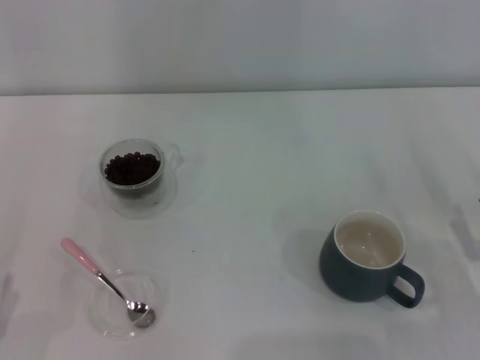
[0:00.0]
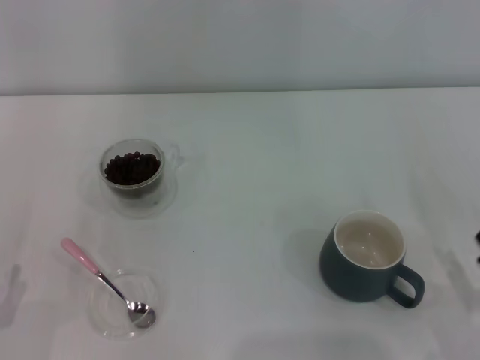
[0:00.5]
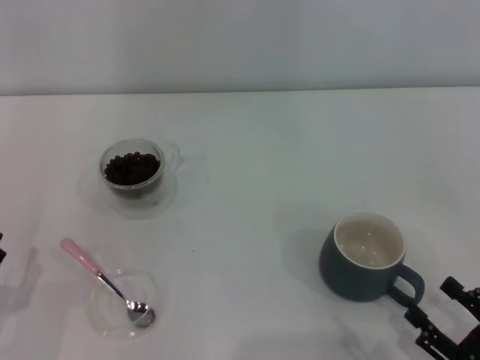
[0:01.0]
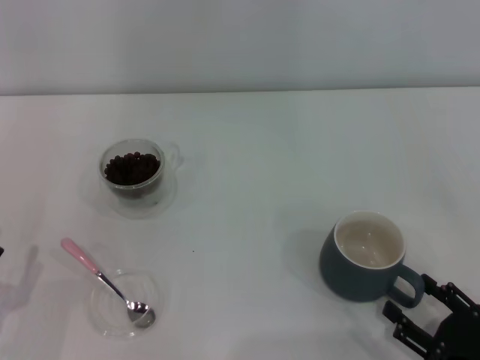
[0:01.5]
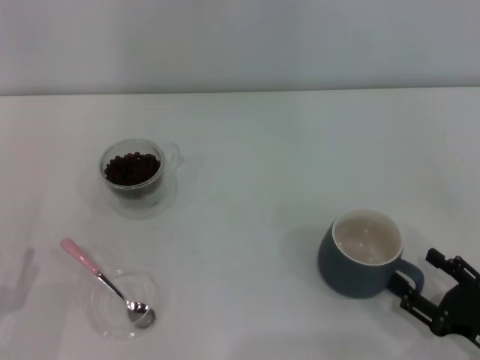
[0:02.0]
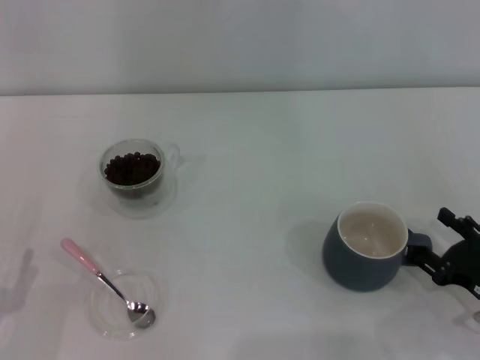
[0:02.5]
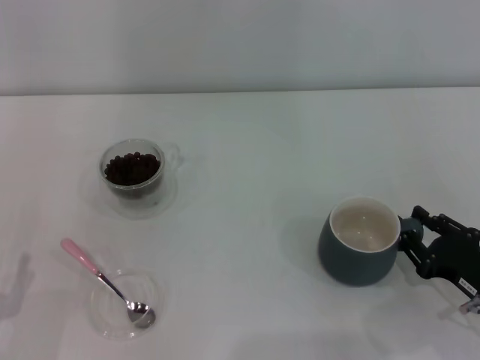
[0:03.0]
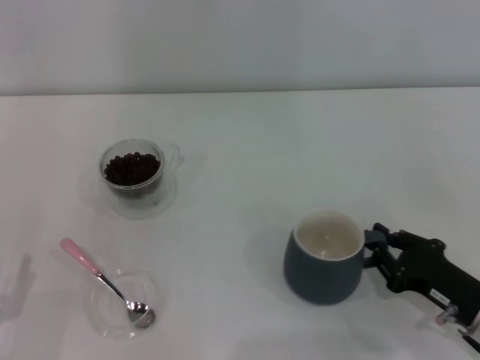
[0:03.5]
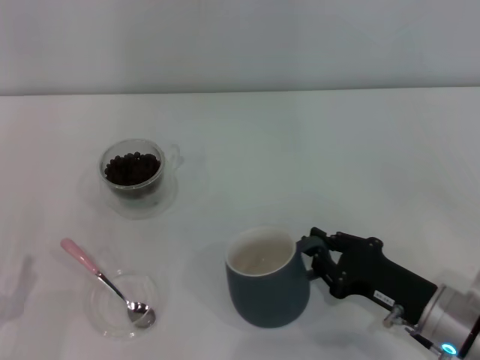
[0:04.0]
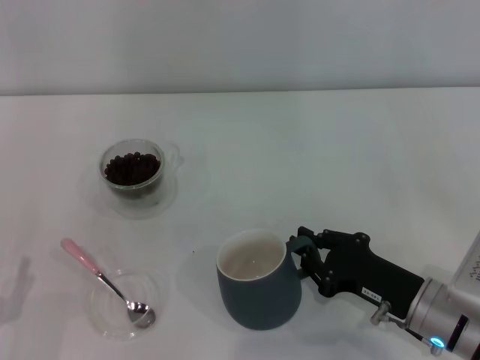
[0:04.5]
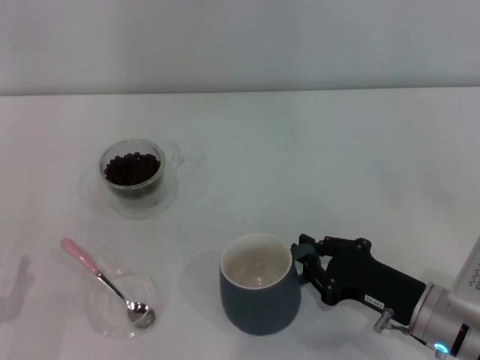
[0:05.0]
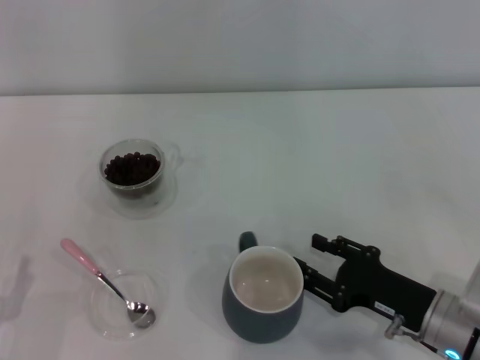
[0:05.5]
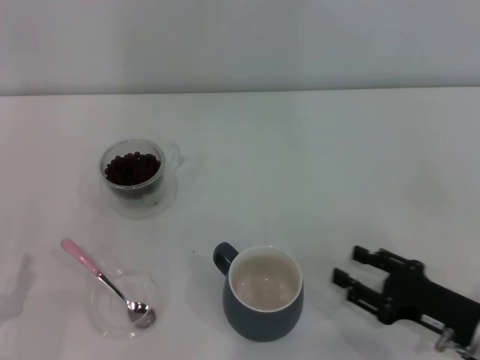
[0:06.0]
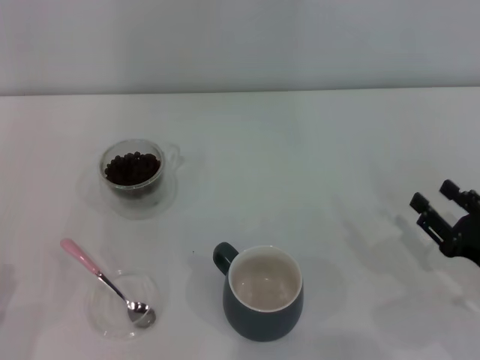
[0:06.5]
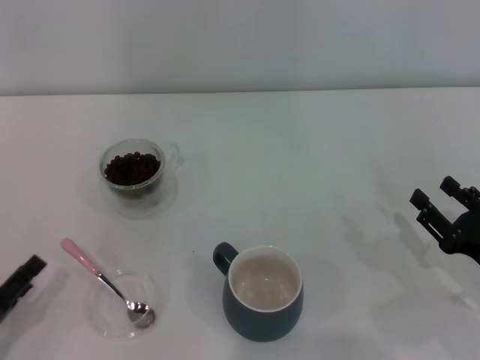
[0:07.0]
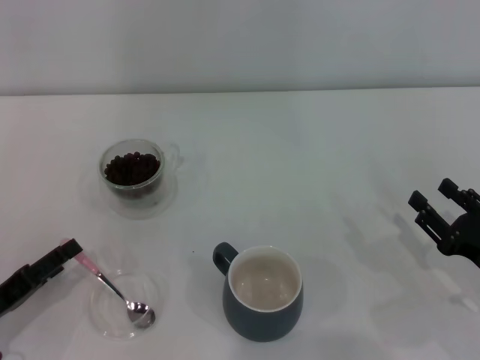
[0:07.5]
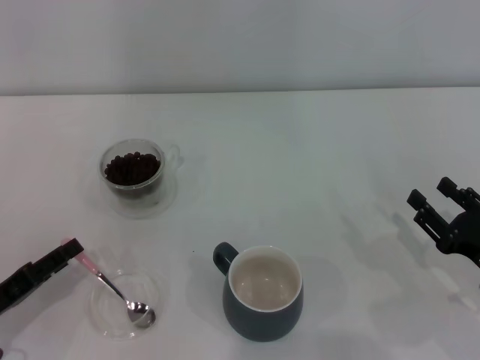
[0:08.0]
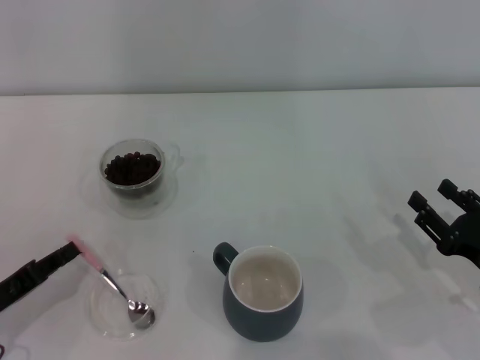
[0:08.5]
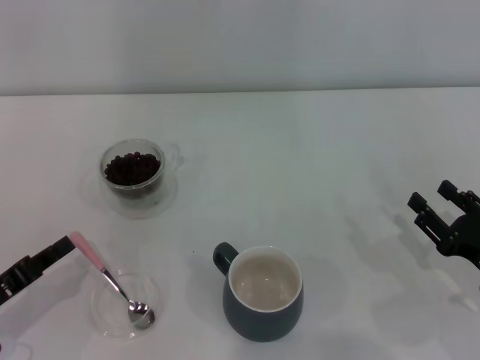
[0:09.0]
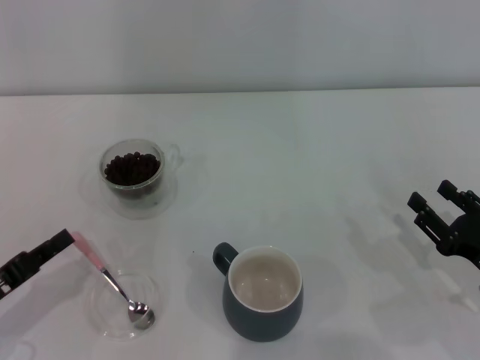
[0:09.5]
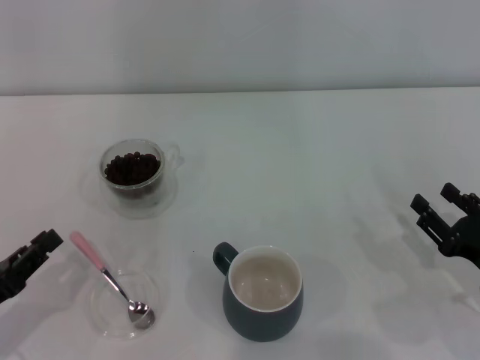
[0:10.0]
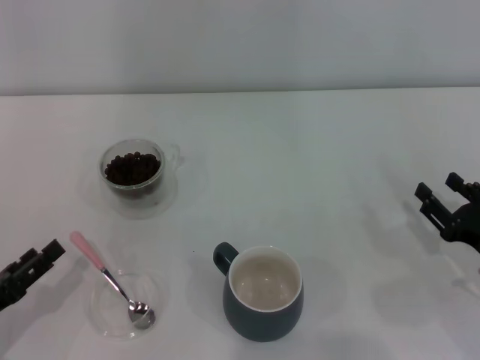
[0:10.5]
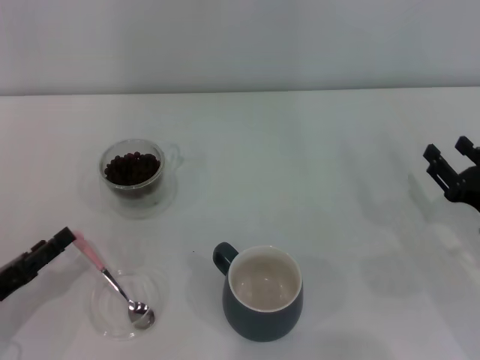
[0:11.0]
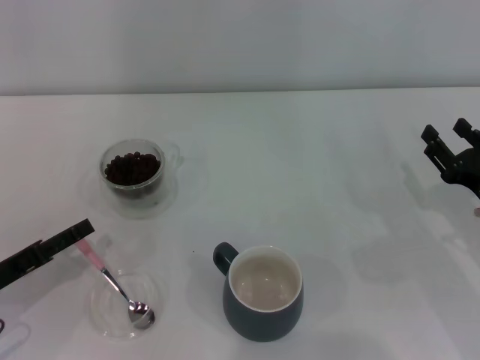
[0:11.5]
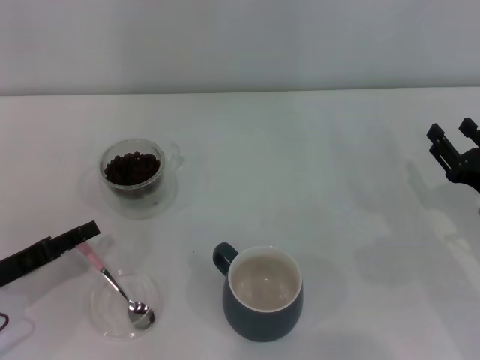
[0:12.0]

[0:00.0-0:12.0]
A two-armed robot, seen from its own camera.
Task of the whole recording: Use a pink spoon to take out the coffee beans from the glass and pour them into the gray cup.
Step, 0:00.0 to 0:06.0: Move the cup to the center of view with the left gripper.
0:02.0 to 0:04.0: The right gripper heads to the left and forward, covering about 10 cm, and closes its fingers.
0:04.0 to 0:06.0: The right gripper changes place by approximately 5 cm, and opens up.
0:06.0 to 0:08.0: The left gripper travels forward by approximately 5 cm.
0:08.0 to 0:10.0: The left gripper closes its fingers.
0:10.0 to 0:12.0: The grippers both shift forward by roughly 5 cm. The left gripper opens.

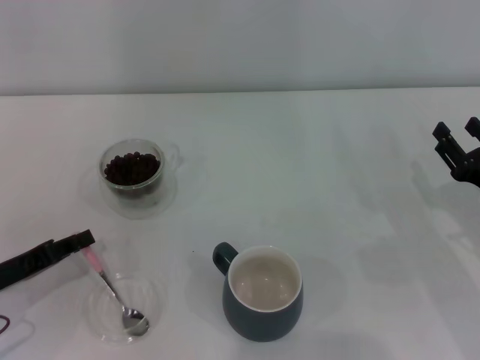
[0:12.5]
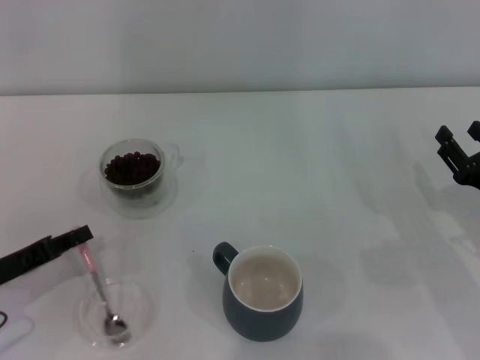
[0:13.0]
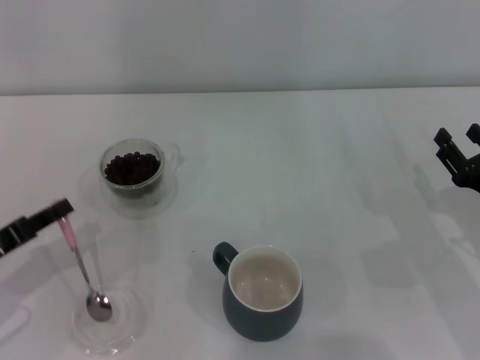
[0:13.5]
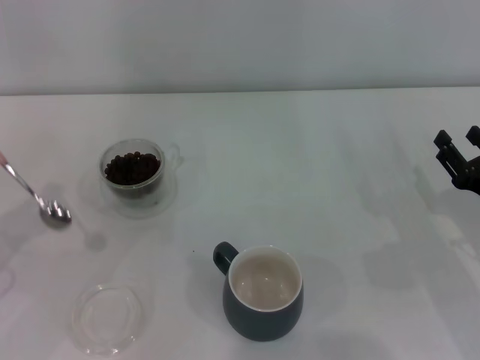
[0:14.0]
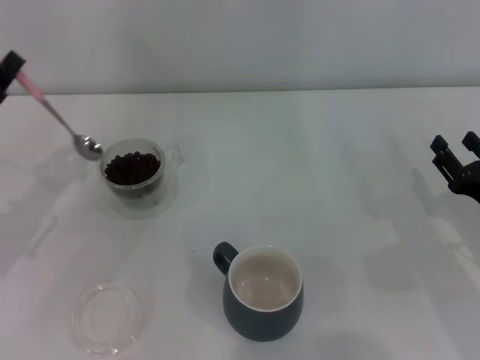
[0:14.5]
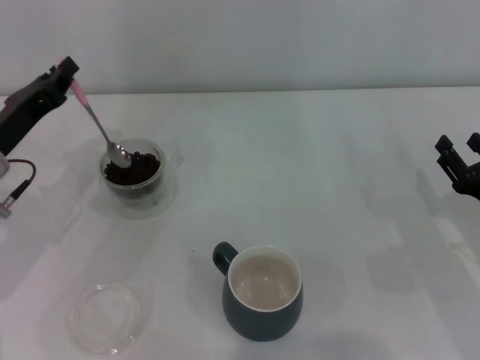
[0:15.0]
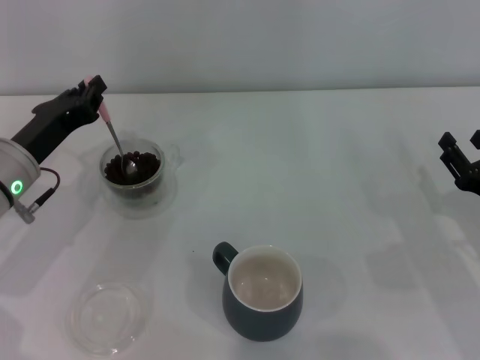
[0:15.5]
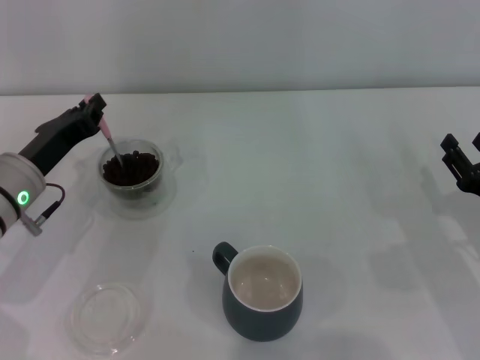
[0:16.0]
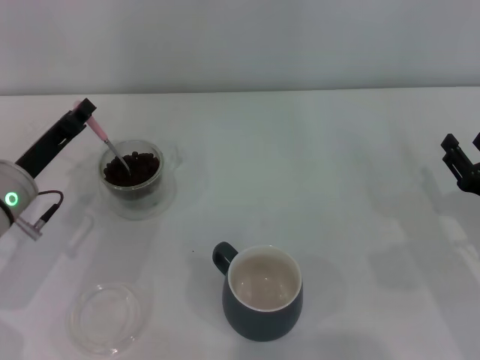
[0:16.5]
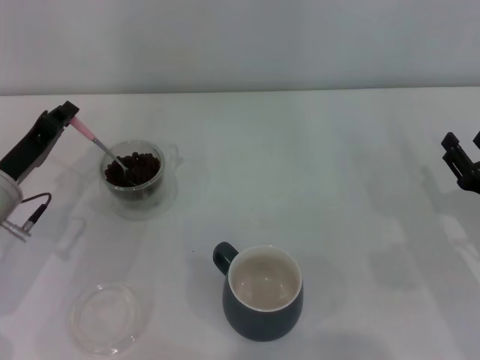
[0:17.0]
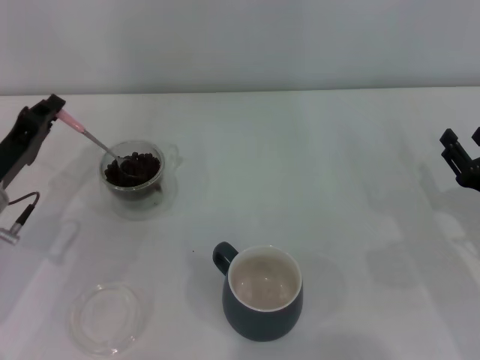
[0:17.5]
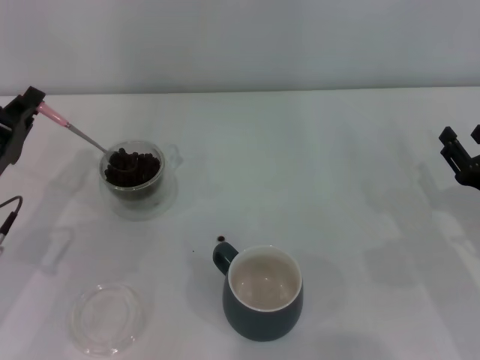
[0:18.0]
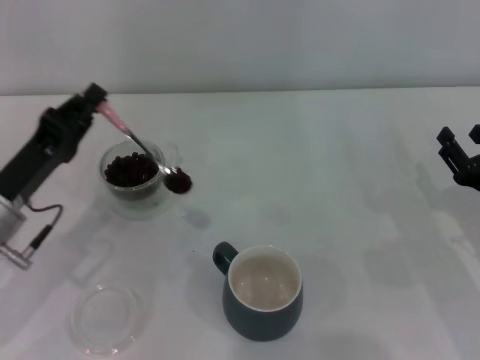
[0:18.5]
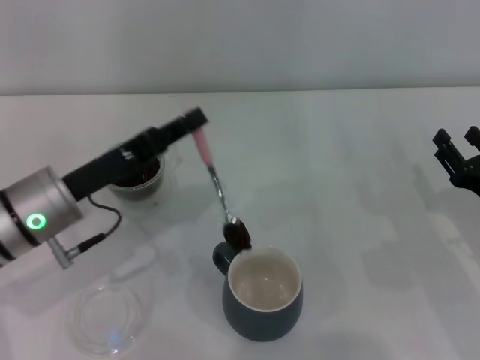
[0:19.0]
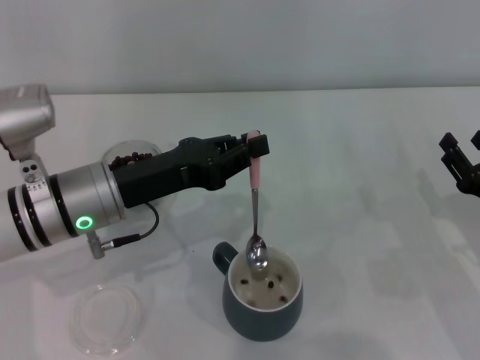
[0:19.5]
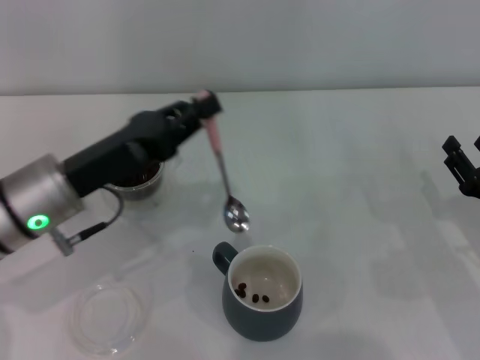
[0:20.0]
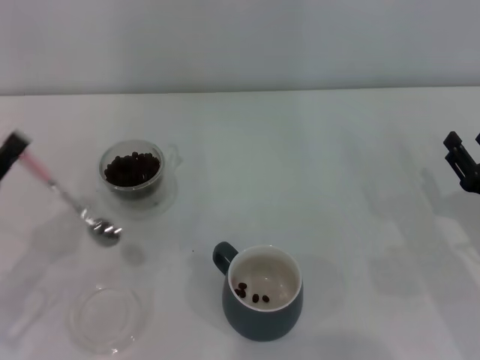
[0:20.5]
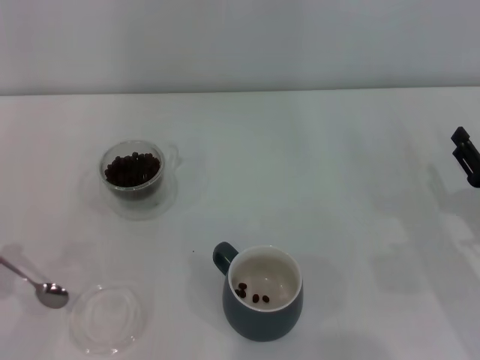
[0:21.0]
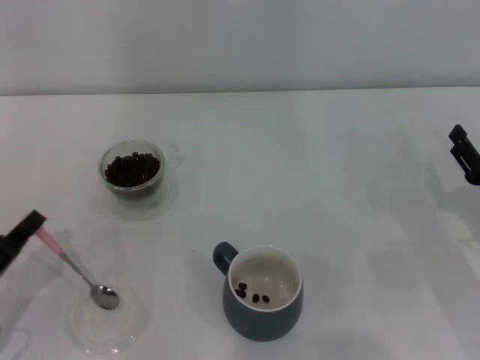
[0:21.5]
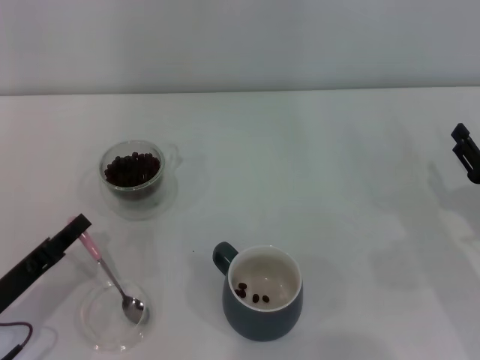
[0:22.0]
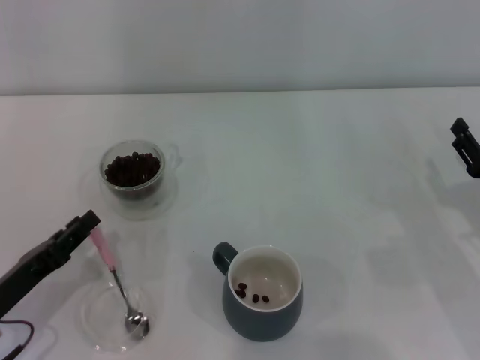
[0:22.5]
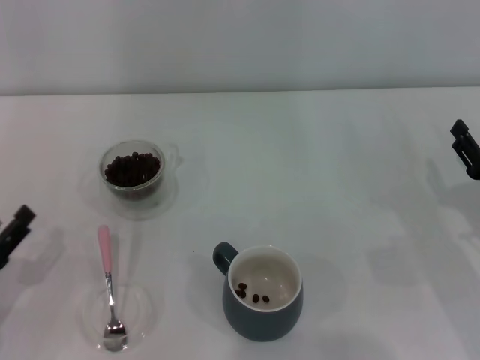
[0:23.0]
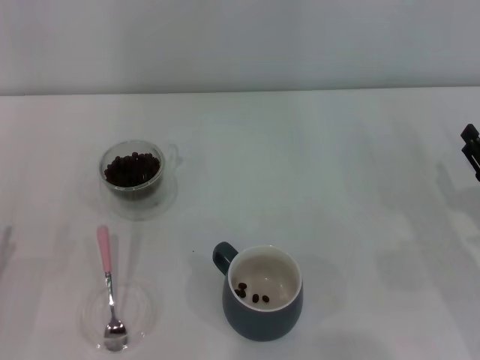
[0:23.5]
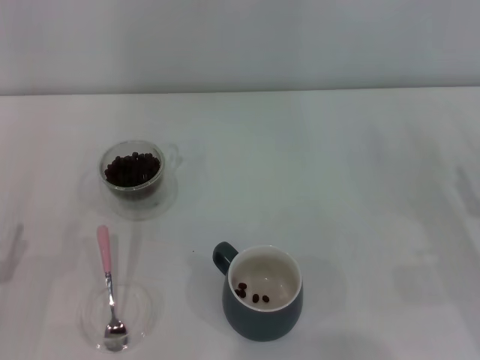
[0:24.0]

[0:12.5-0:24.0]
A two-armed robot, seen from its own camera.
Task of the whole recording: Use a pink spoon to take out the coffee beans from the glass and pour them into the gray cup.
0:12.5 to 0:14.5: The left gripper heads upward and forward, covering roughly 10 cm.
0:14.5 to 0:16.5: The left gripper is displaced to the right by some 5 cm.
0:16.5 to 0:18.5: The left gripper changes place by some 5 cm.
0:18.5 to 0:20.0: The left gripper moves to the right, approximately 5 cm.
0:20.0 to 0:22.0: The left gripper moves downward, to the left and backward, roughly 15 cm.
0:22.0 to 0:24.0: The left gripper opens up.
